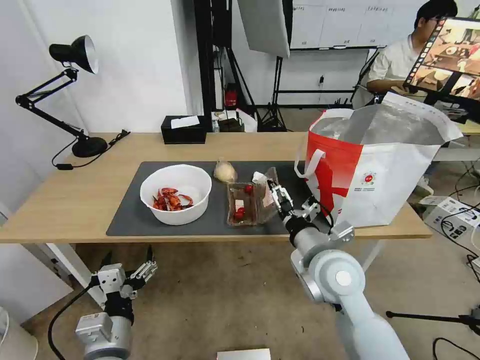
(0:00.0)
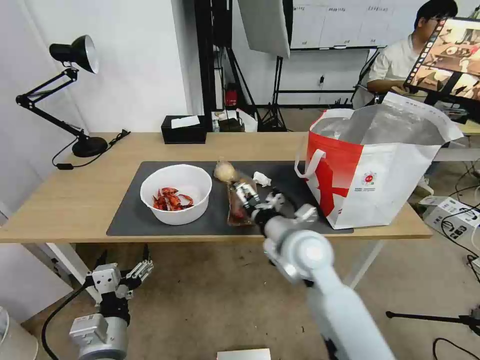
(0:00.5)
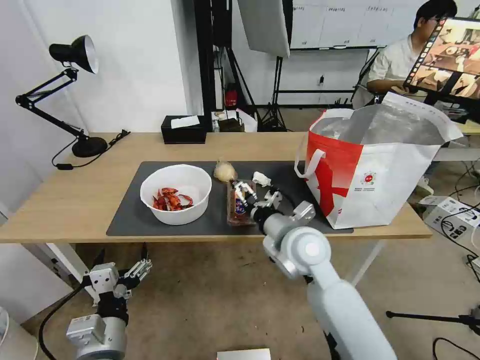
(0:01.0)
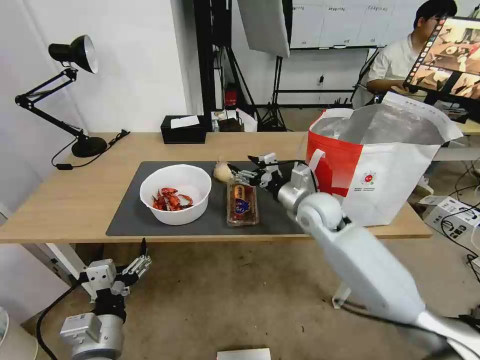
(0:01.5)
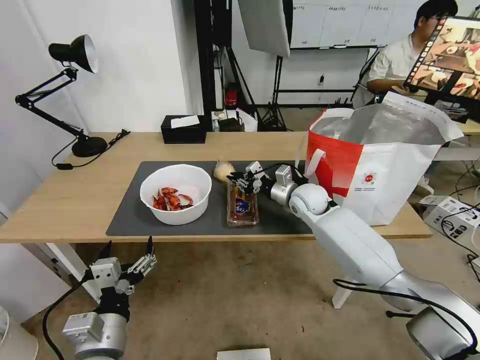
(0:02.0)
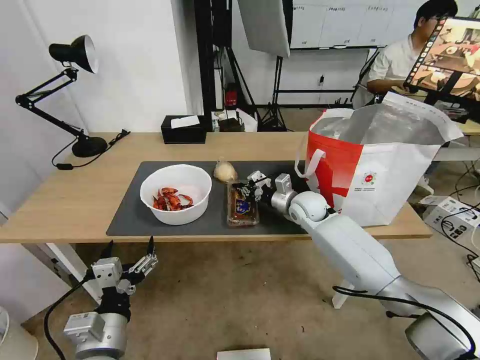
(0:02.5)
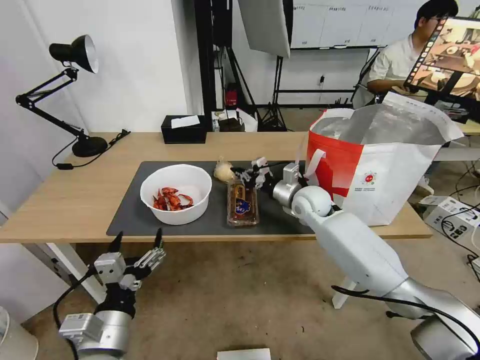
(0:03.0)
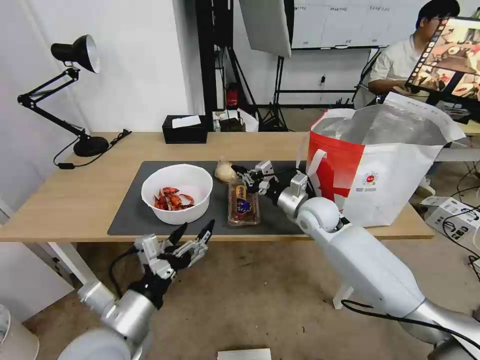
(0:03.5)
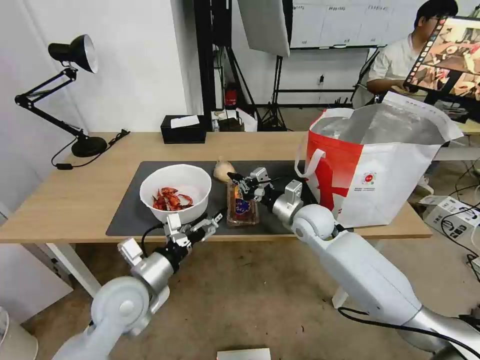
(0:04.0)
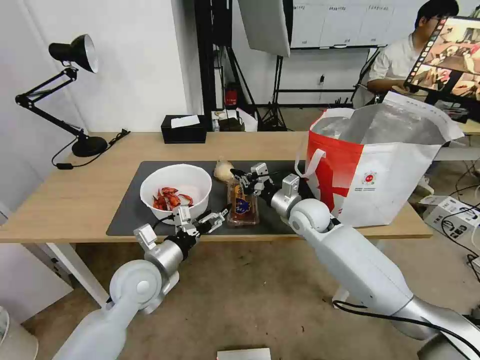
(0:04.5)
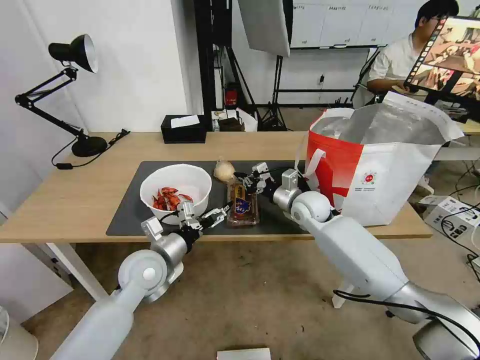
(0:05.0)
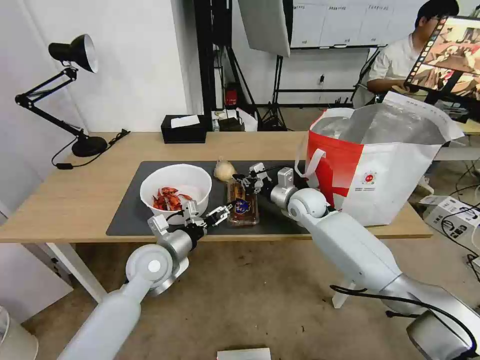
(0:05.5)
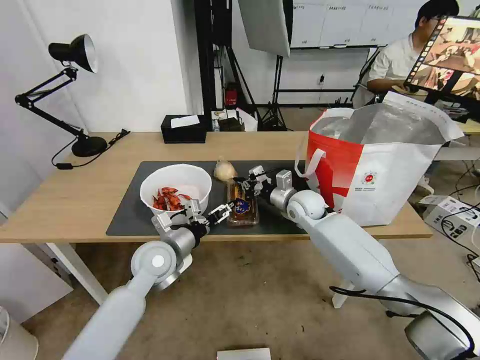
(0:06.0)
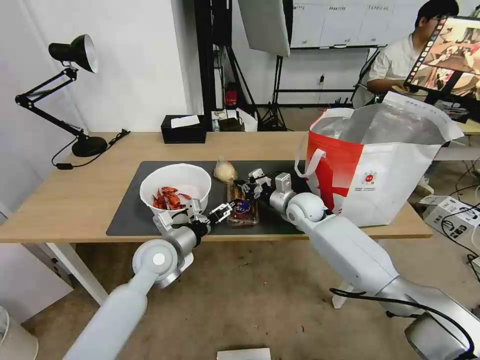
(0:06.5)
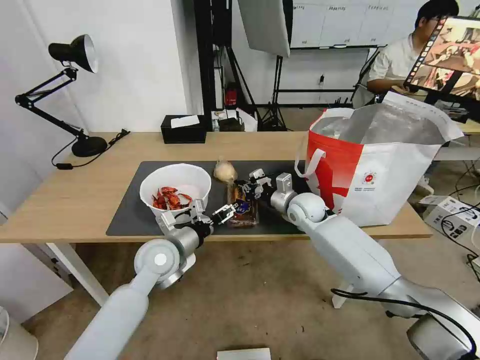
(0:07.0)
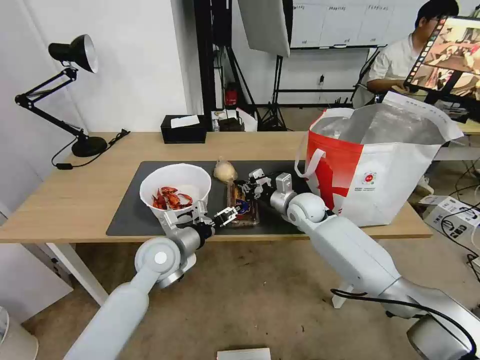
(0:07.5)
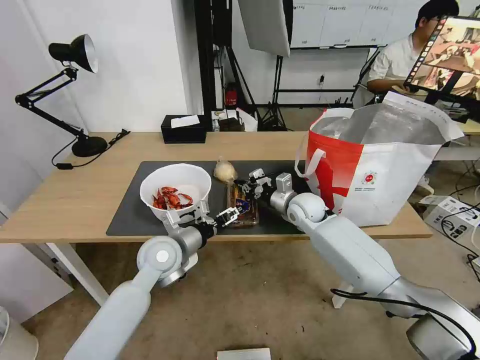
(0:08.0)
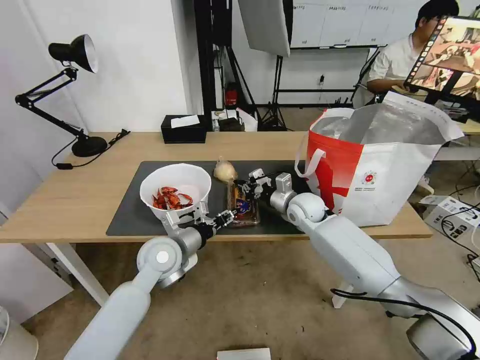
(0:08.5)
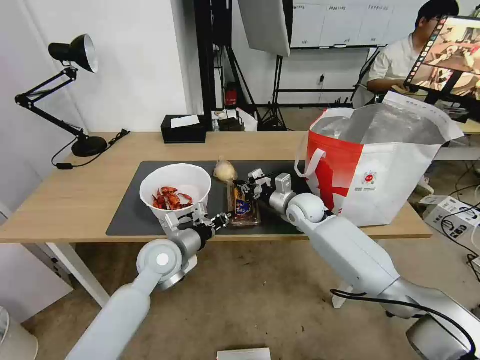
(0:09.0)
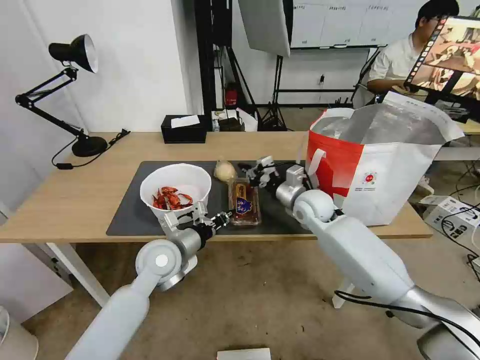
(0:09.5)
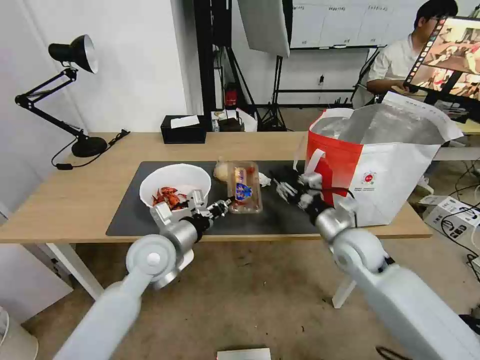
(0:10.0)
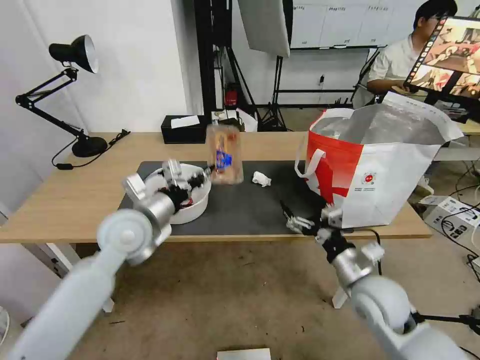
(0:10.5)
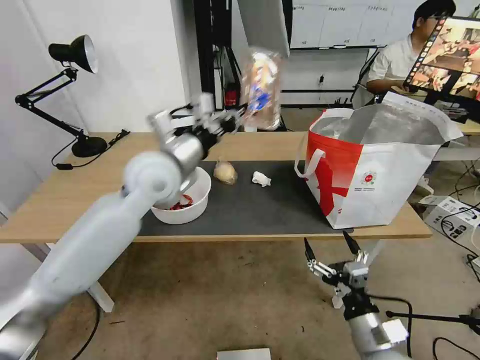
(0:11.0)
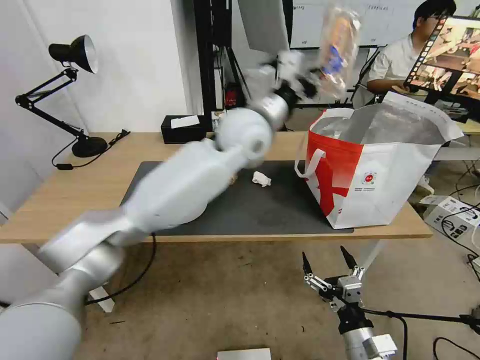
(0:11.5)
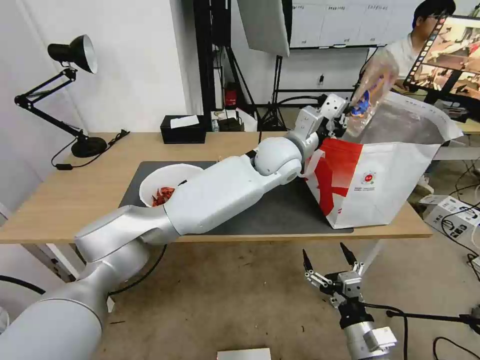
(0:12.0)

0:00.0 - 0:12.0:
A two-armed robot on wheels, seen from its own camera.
Task of the whole recording: Pick up the trash from the table and place it into the takeout bag.
0:00.0 - 0:02.0: The right gripper shifts roughly 25 cm forward, and closes.
0:02.0 - 0:04.0: The left gripper shifts approximately 15 cm forward, while the right gripper is displaced backward by approximately 5 cm.
0:04.0 - 0:06.0: The grippers both shift forward by about 10 cm.
0:06.0 - 0:08.0: The grippers stay close to where they were, moving slightly.
0:08.0 - 0:10.0: The right gripper moves backward and to the right, roughly 15 cm, and opens its fingers; the left gripper closes up.
0:10.0 - 0:12.0: The right gripper travels backward and downward by approximately 25 cm, and opens up. The left gripper heads to the right, forward and upward, covering approximately 35 cm.

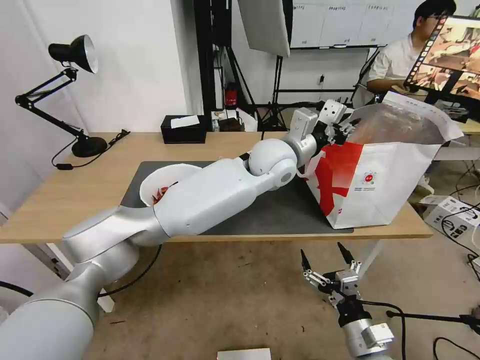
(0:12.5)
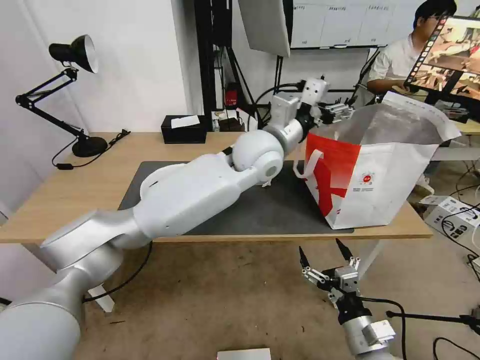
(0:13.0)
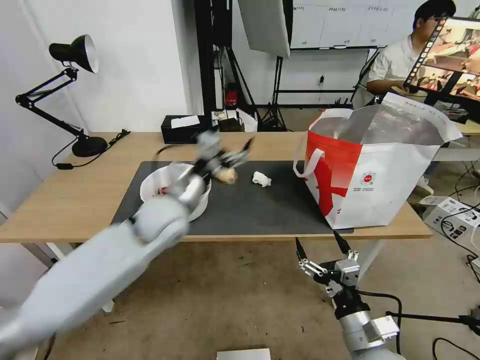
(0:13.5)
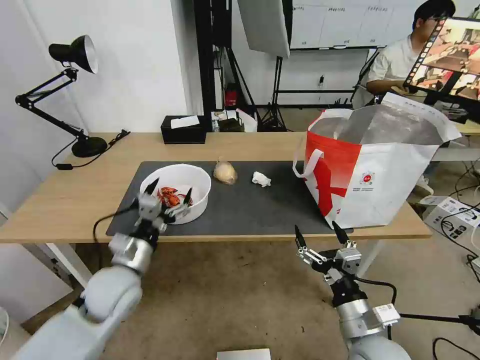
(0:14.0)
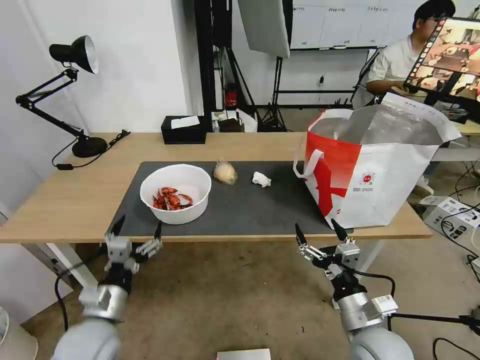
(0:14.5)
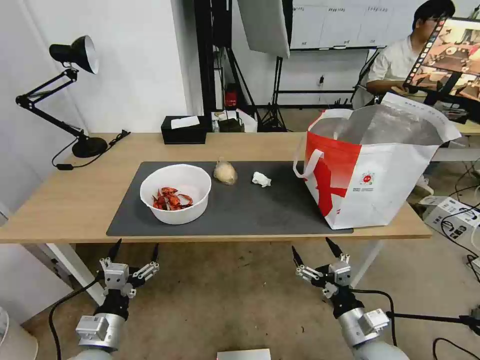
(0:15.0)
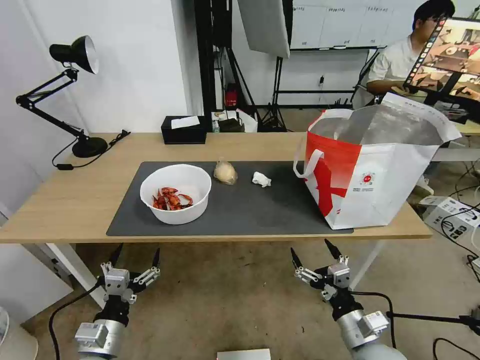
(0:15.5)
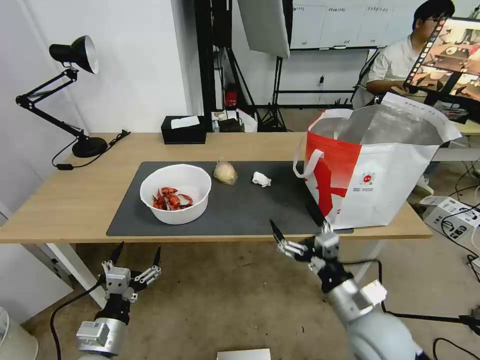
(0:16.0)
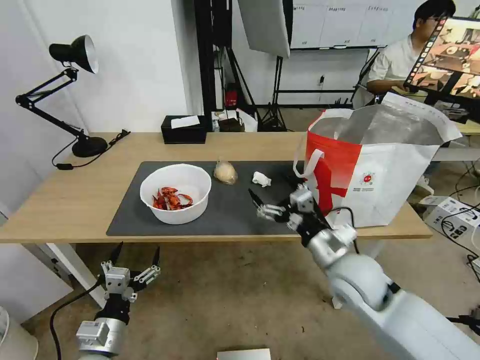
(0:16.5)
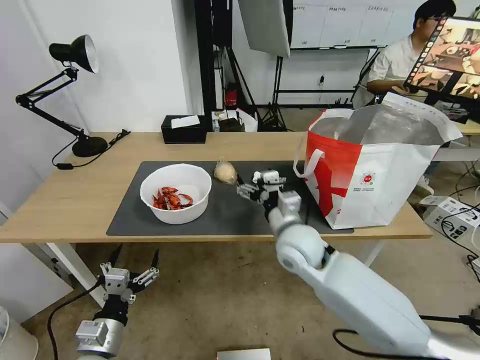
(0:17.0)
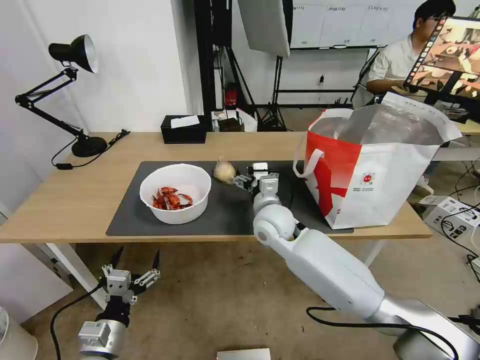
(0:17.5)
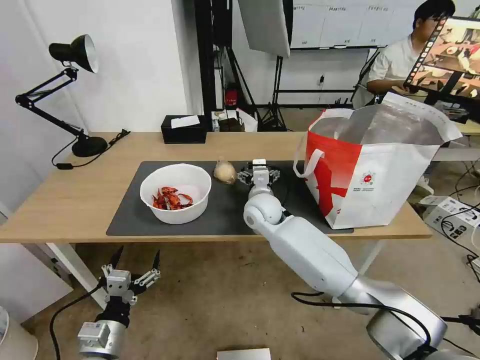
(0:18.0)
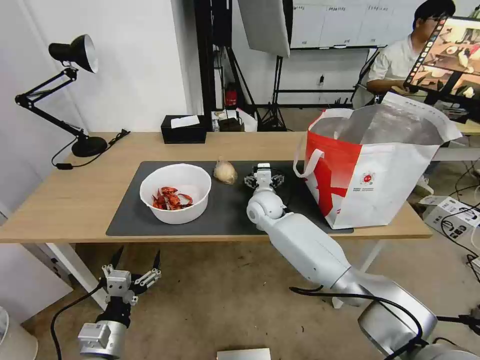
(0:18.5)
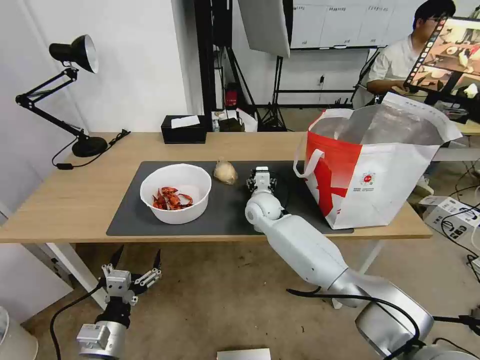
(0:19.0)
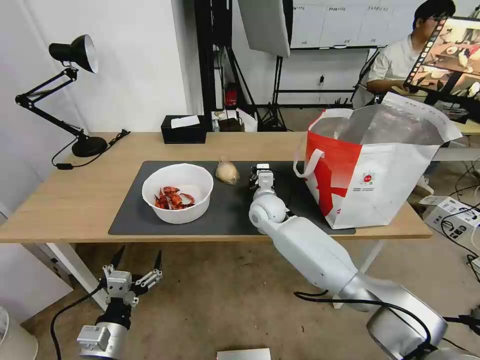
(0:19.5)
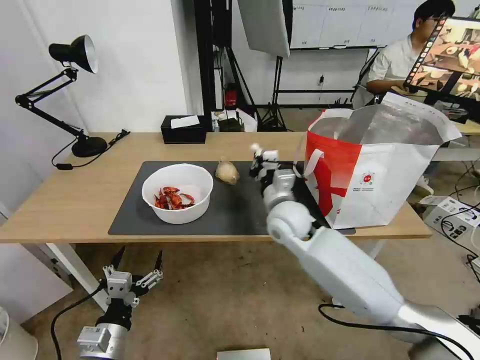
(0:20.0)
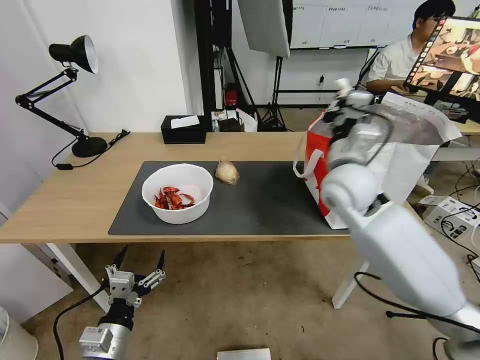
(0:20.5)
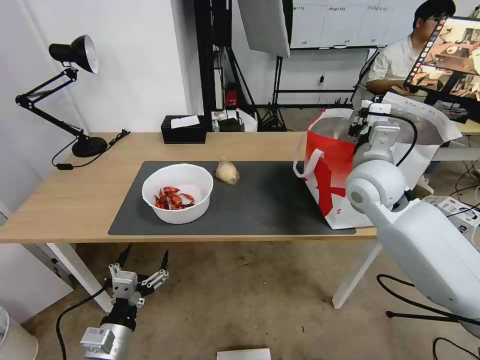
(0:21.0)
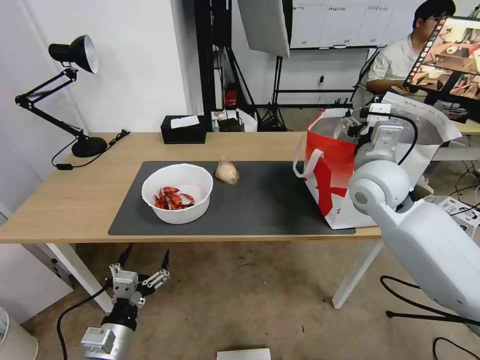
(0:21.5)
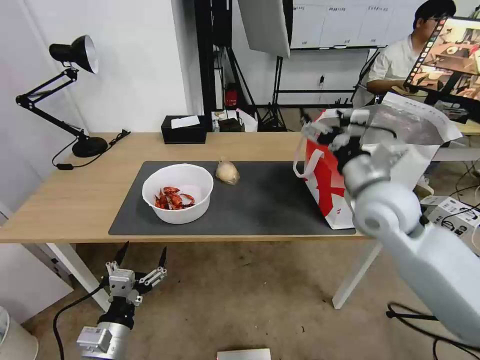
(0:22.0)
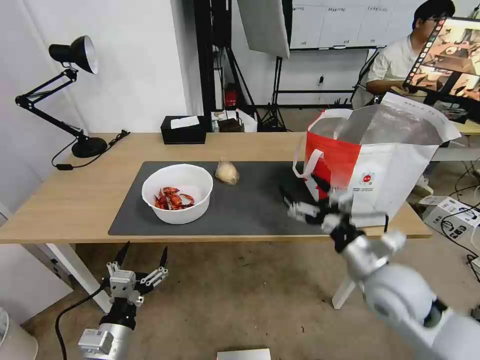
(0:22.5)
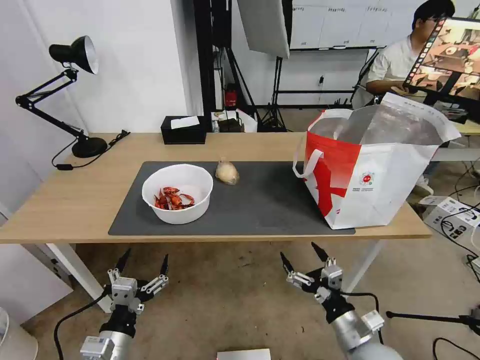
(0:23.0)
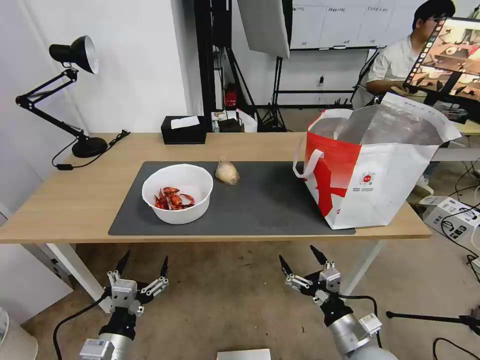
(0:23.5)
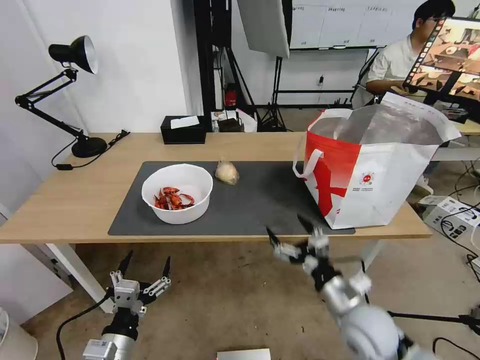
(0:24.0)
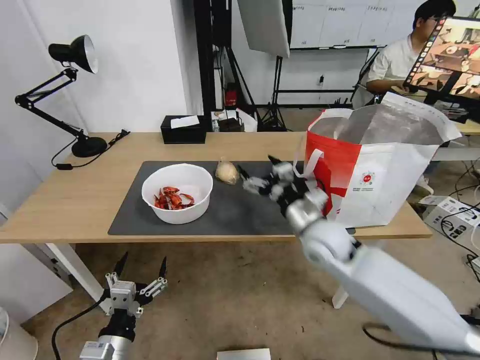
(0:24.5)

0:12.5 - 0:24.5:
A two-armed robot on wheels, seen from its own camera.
Task of the whole recording: Pick up the trash from the table and place it into the takeout bag.
0:12.5 - 0:14.5: The right gripper moves about 5 cm. Meanwhile the left gripper travels to the left, backward and downward by approximately 50 cm, and opens up.
0:14.5 - 0:16.5: The left gripper moves some 5 cm. Meanwhile the right gripper travels forward and upward by approximately 15 cm.
0:16.5 - 0:18.5: The right gripper moves forward and to the left, approximately 30 cm.
0:18.5 - 0:20.5: The right gripper is displaced upward, to the right and backward by about 25 cm, and closes up.
0:20.5 - 0:22.5: The right gripper moves backward and downward, some 20 cm, and opens its fingers.
0:22.5 - 0:24.5: The right gripper is displaced forward and to the left by roughly 15 cm.

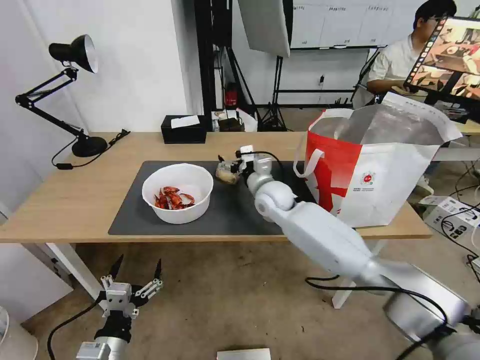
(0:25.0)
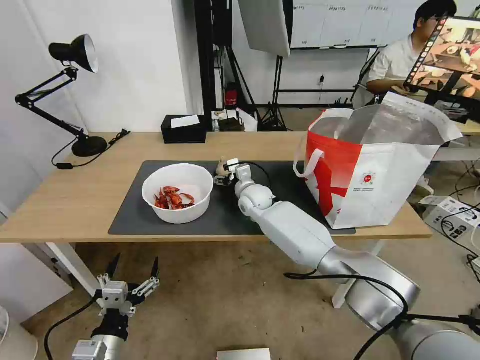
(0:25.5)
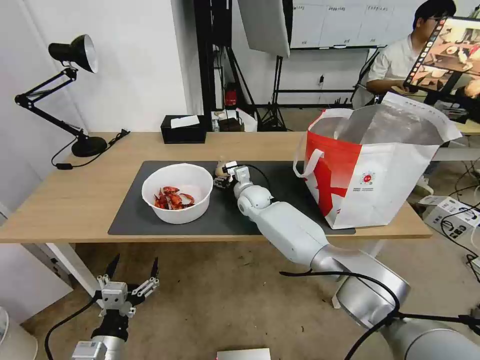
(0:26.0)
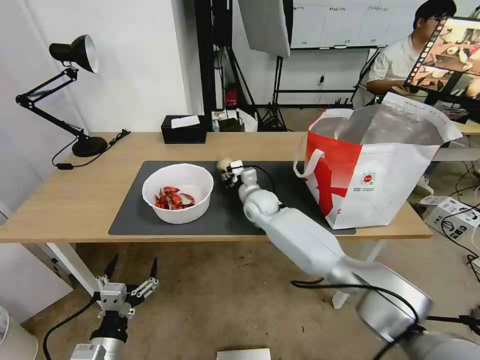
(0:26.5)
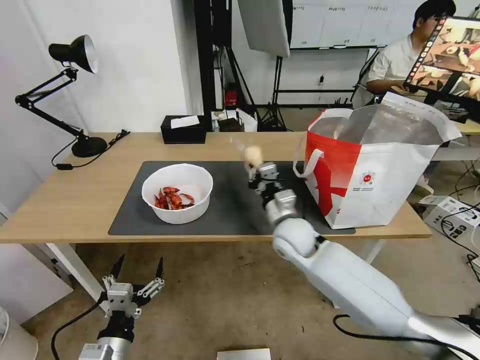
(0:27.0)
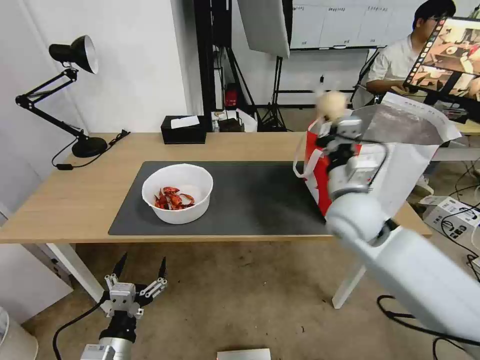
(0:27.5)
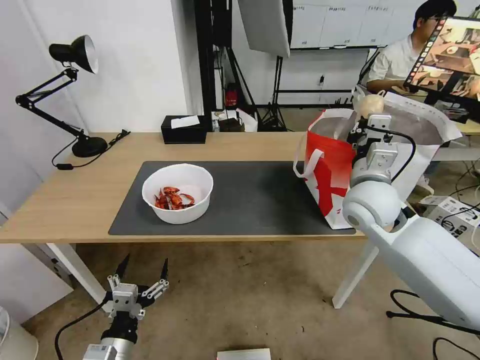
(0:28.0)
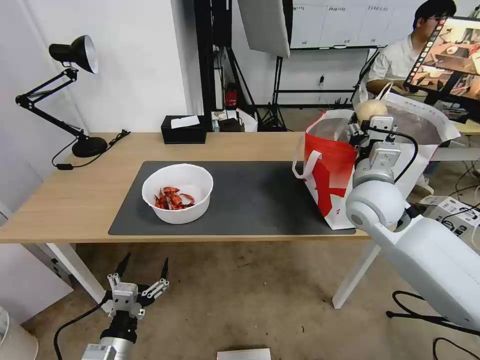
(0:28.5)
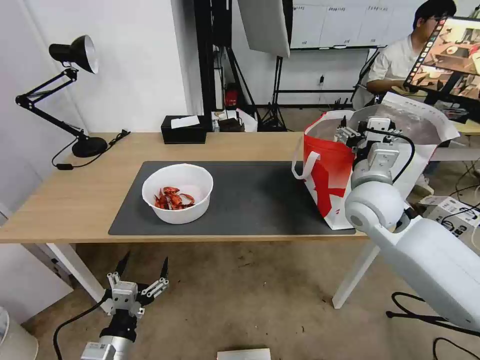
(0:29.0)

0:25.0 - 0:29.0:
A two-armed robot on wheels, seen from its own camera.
Task of the whole recording: Pick up the trash from the table and place it into the takeout bag.
0:25.0 - 0:27.0: The right gripper goes roughly 10 cm backward, and closes its fingers.
0:27.0 - 0:29.0: The right gripper shifts roughly 20 cm upward and to the right, and opens up.
